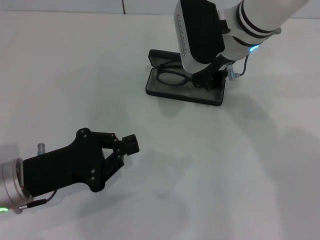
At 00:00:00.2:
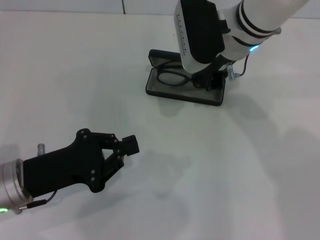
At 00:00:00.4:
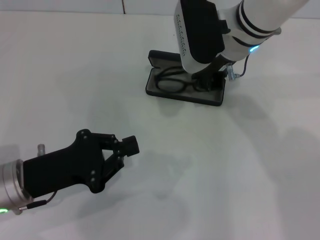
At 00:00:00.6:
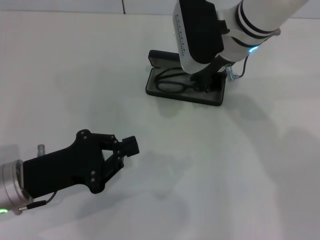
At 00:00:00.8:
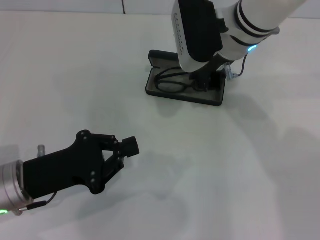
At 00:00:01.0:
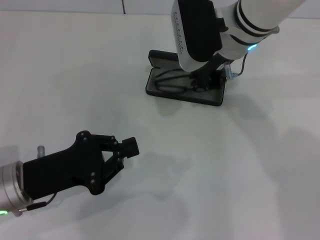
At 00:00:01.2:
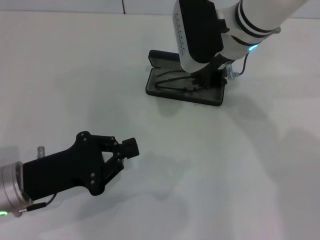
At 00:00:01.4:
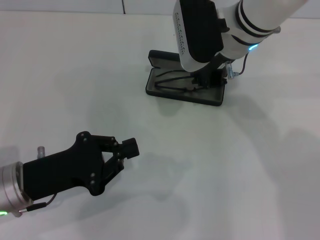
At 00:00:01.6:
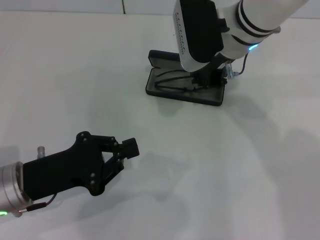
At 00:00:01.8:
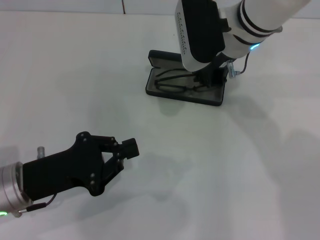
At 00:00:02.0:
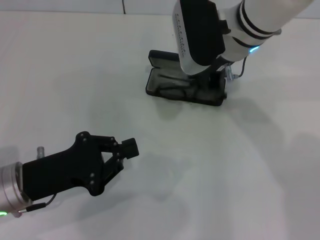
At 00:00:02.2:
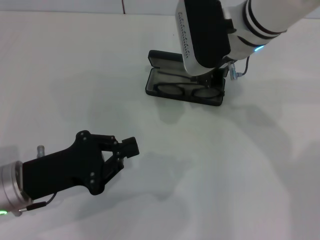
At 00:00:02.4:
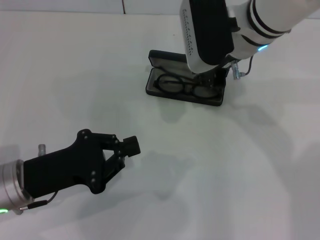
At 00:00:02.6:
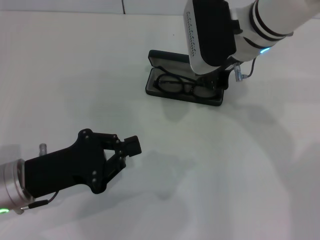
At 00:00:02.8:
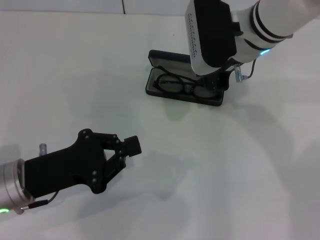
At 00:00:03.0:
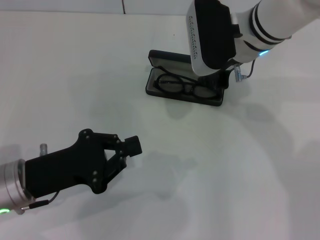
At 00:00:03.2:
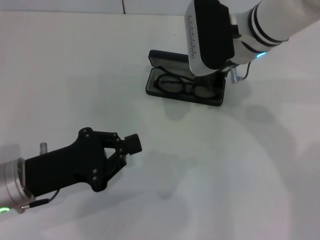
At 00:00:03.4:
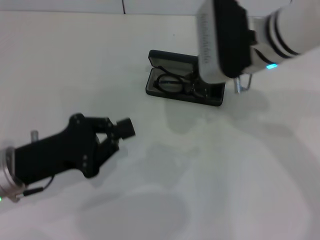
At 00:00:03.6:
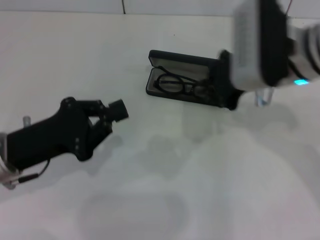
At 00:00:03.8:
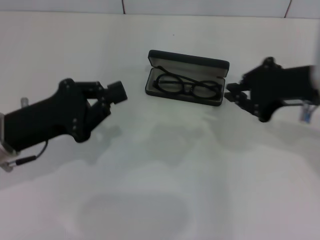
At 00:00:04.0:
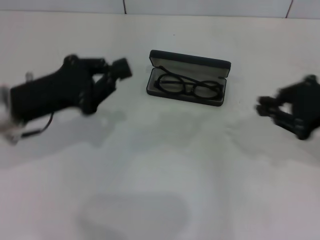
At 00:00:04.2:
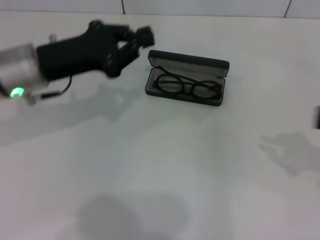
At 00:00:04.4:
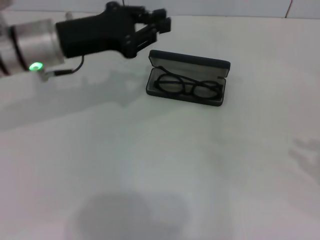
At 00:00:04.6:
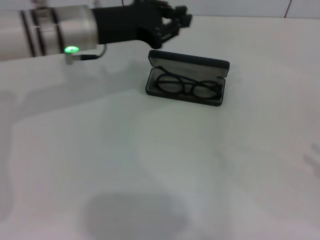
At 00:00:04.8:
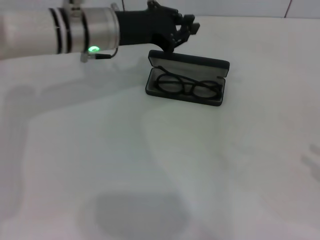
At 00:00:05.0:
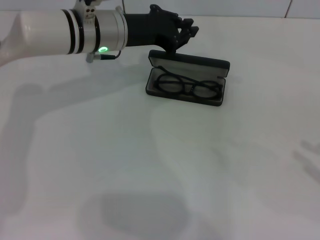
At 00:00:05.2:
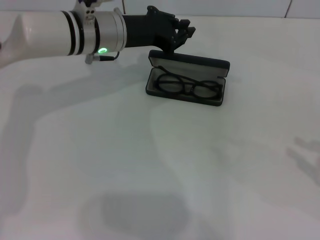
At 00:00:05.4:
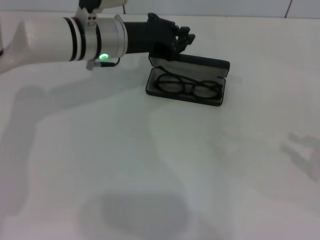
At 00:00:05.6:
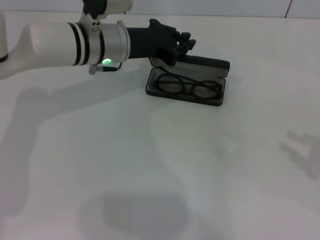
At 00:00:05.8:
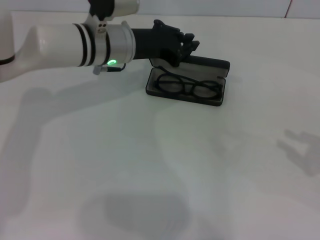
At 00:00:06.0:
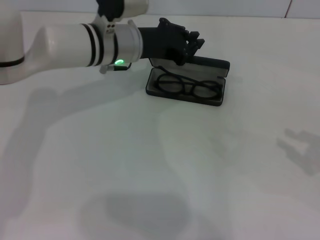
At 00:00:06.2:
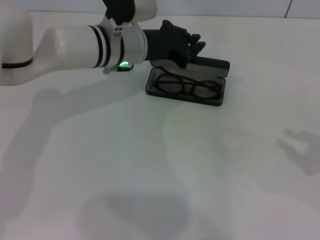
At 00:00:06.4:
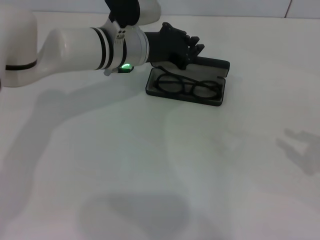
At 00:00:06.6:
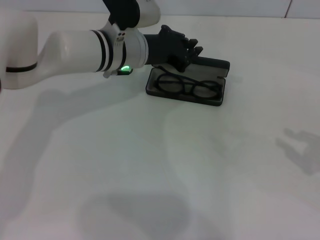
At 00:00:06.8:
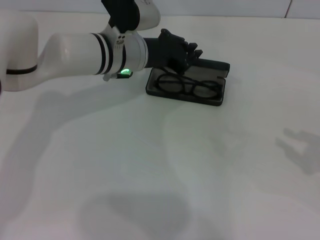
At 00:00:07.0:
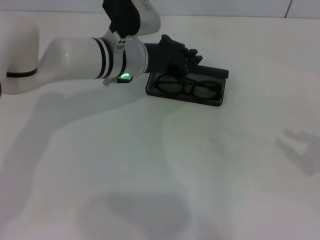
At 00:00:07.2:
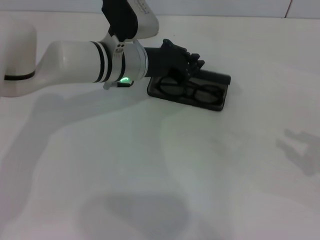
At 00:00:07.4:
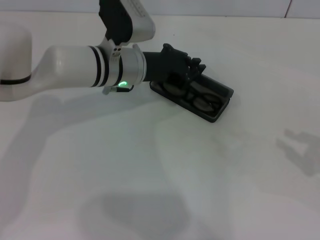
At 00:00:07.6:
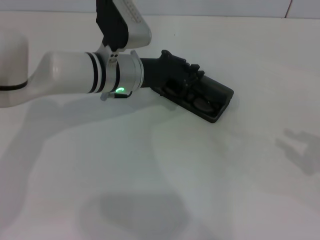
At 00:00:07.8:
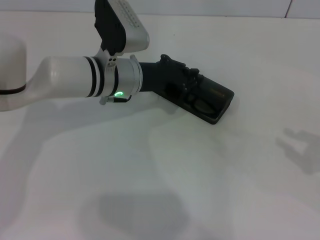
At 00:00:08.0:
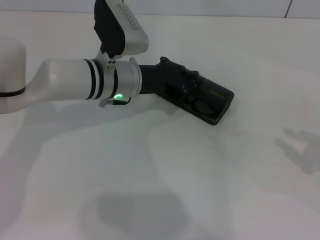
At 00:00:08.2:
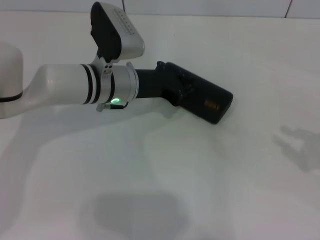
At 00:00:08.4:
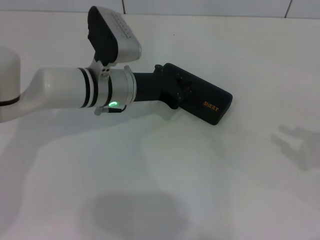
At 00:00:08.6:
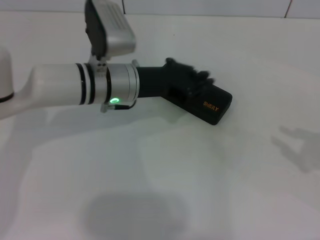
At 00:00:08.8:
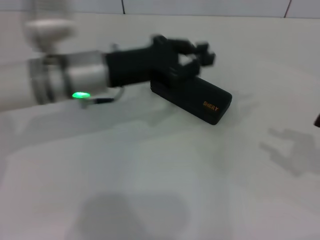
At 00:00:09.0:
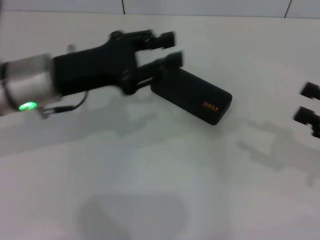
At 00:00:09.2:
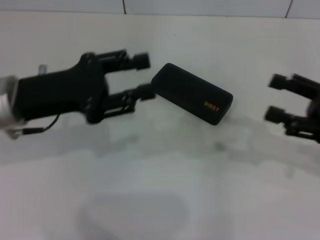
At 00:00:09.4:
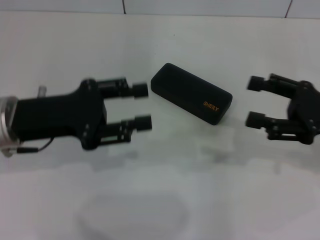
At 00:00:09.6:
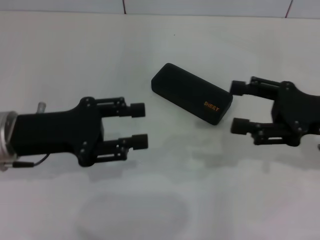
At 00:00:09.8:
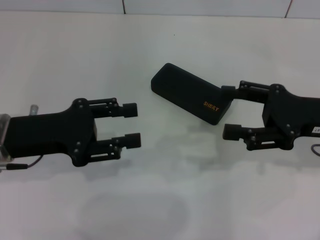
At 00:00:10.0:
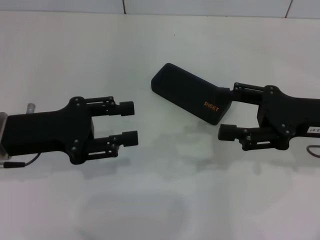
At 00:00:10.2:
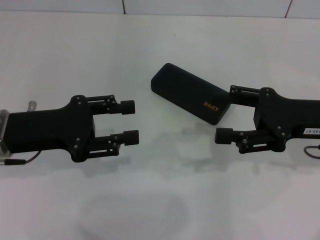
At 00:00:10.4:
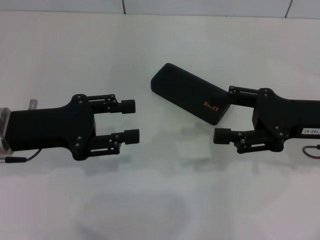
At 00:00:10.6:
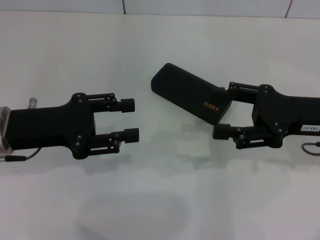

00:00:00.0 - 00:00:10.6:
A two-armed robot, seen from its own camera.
Step, 00:00:00.0 - 00:00:03.0: Put the glasses into the case with your right hand.
Step, 00:00:03.2 - 00:00:08.2: Close the glasses case with your left hand.
00:00:00.0 - 00:00:01.6: Both grippers stay put.
00:00:01.6 - 00:00:03.0: There are only small adjustments of the grippers.
00:00:03.0 - 00:00:04.6: The right gripper goes approximately 40 cm to the right and backward. Meanwhile the left gripper goes some 20 cm forward, upward and to the right.
00:00:04.6 - 00:00:06.0: The left gripper is displaced to the right by some 5 cm, while the right gripper is displaced forward by roughly 5 cm.
00:00:06.0 - 00:00:07.6: The grippers stay close to where they were, moving slightly.
00:00:07.6 - 00:00:09.0: The left gripper is displaced to the left, backward and upward by roughly 15 cm, while the right gripper moves about 5 cm.
00:00:09.0 - 00:00:10.6: The left gripper goes about 5 cm to the left, and opens; the right gripper travels to the left and forward by some 10 cm, and opens its fingers.
